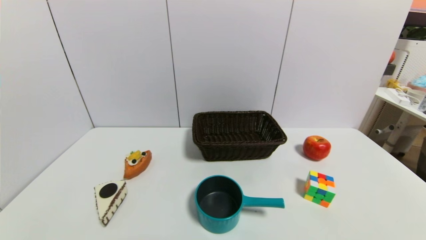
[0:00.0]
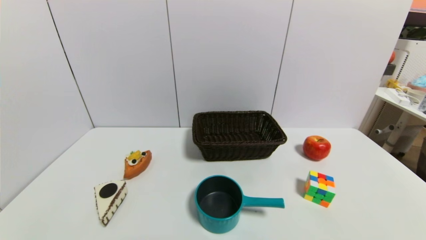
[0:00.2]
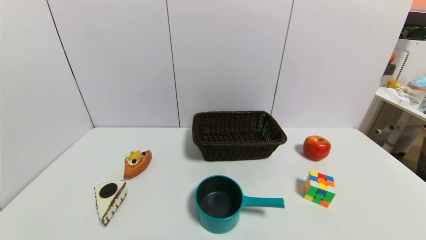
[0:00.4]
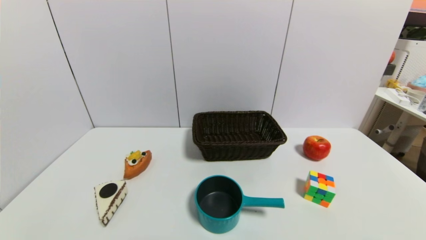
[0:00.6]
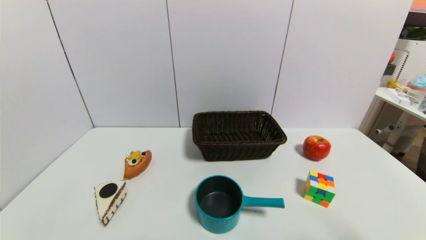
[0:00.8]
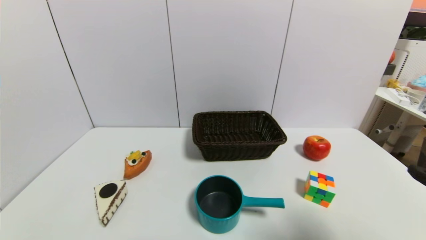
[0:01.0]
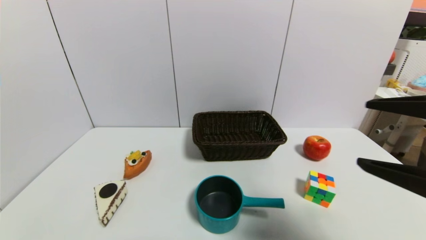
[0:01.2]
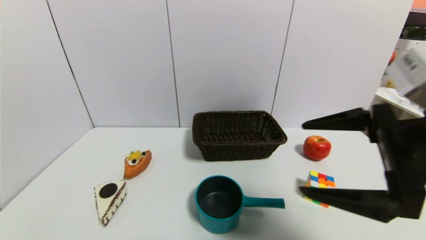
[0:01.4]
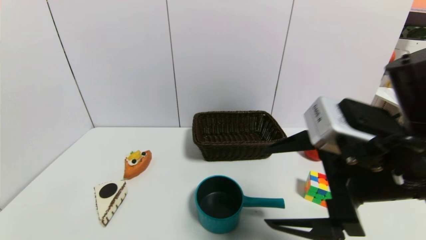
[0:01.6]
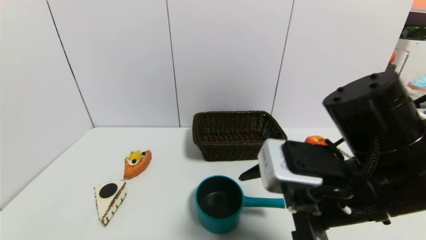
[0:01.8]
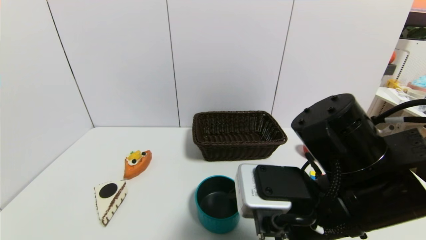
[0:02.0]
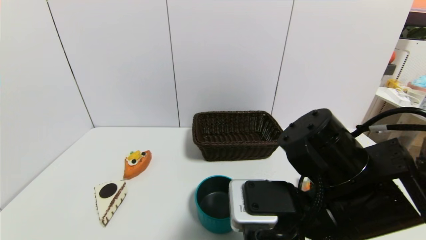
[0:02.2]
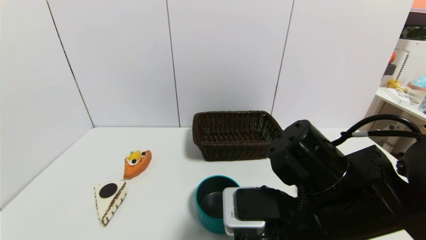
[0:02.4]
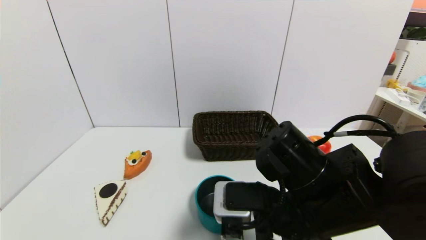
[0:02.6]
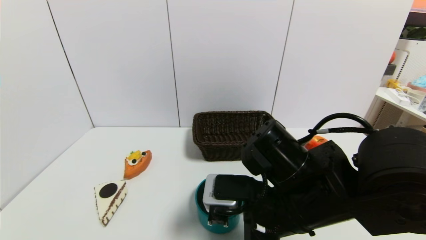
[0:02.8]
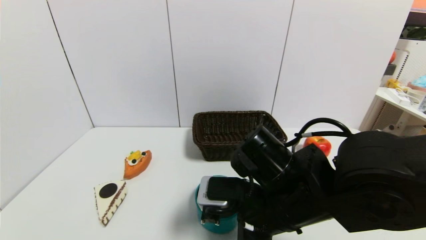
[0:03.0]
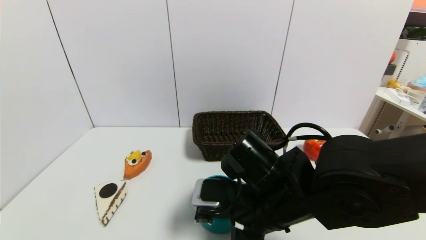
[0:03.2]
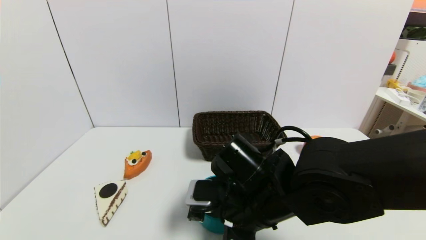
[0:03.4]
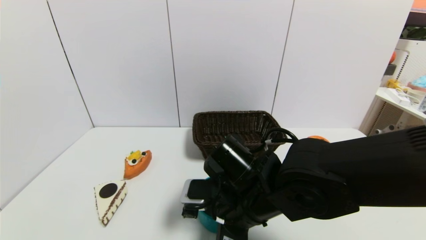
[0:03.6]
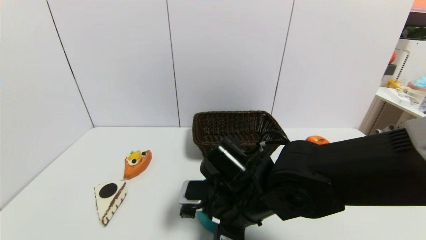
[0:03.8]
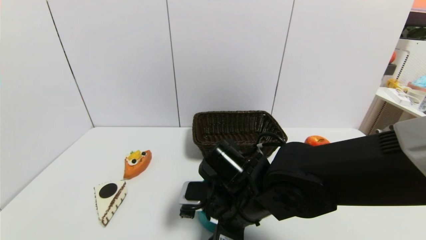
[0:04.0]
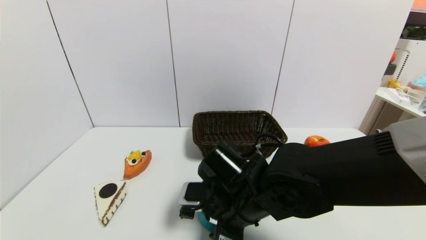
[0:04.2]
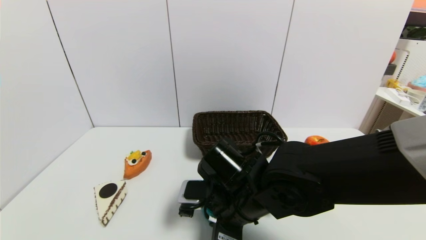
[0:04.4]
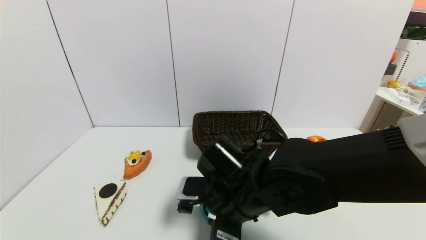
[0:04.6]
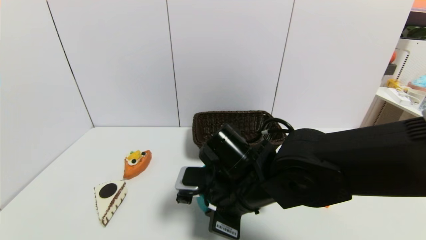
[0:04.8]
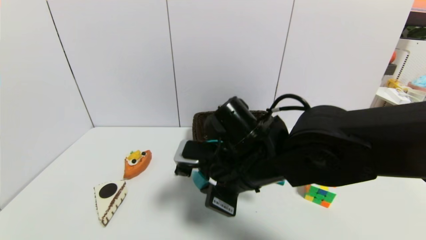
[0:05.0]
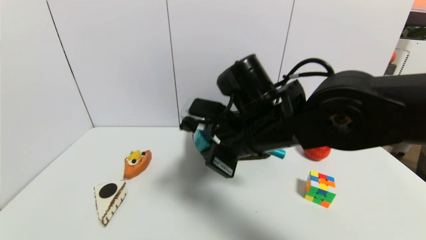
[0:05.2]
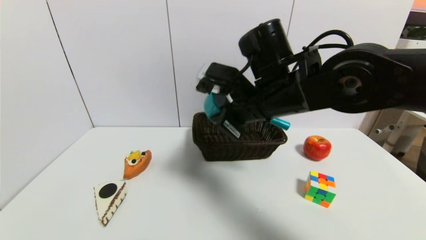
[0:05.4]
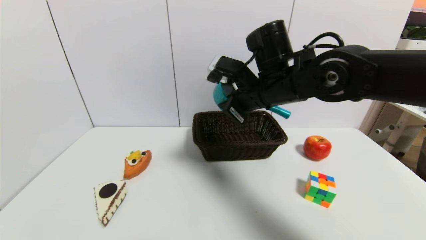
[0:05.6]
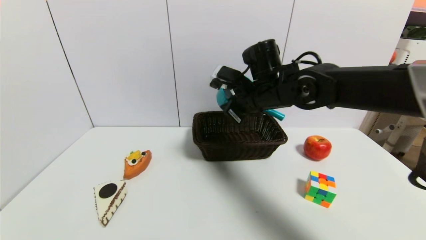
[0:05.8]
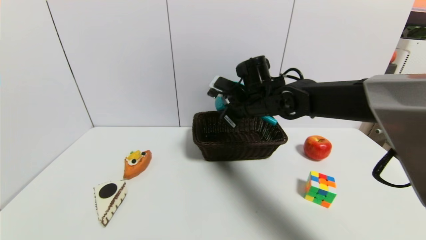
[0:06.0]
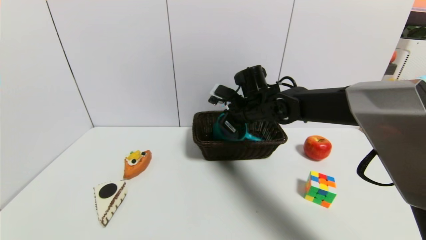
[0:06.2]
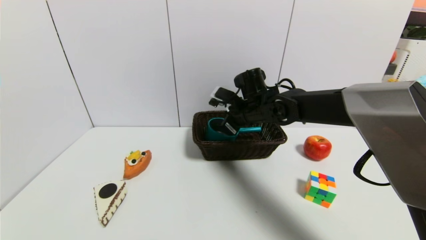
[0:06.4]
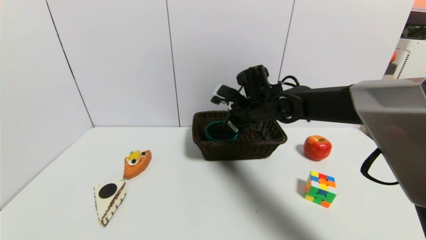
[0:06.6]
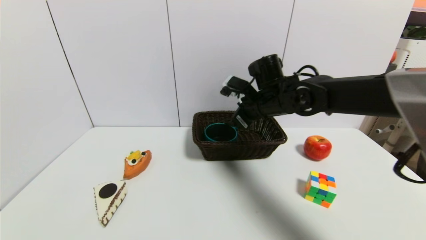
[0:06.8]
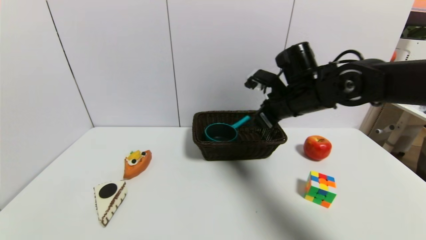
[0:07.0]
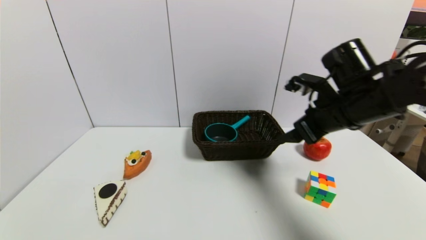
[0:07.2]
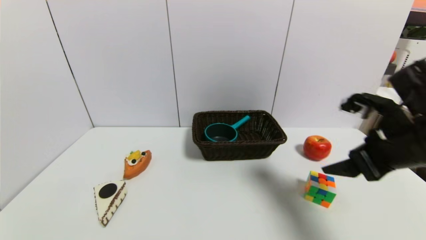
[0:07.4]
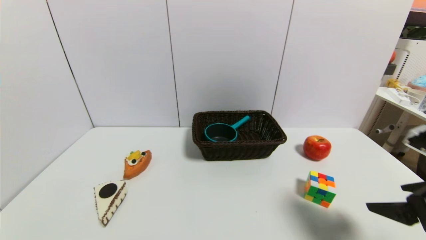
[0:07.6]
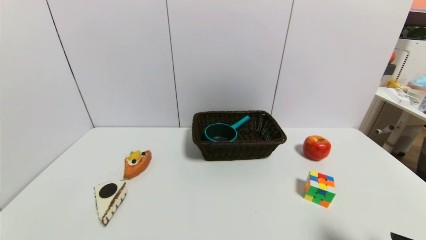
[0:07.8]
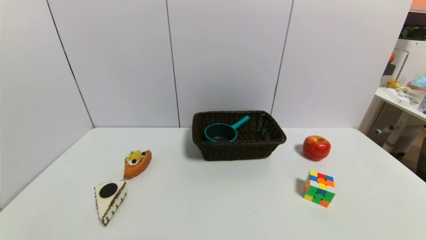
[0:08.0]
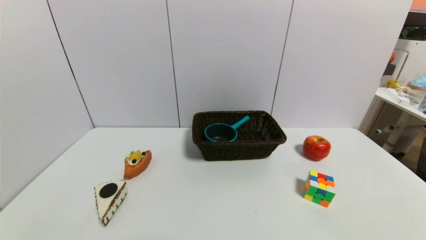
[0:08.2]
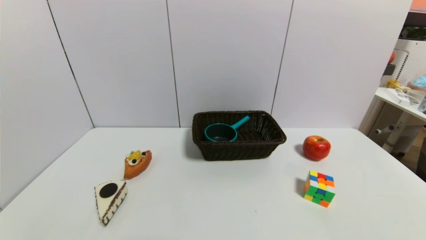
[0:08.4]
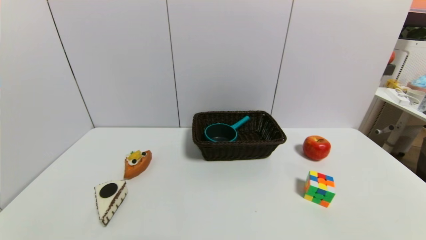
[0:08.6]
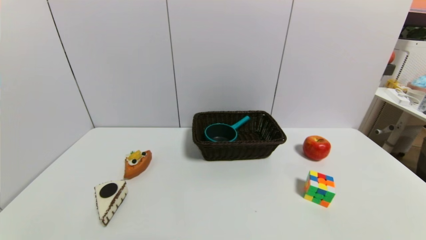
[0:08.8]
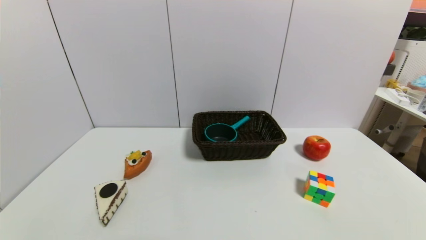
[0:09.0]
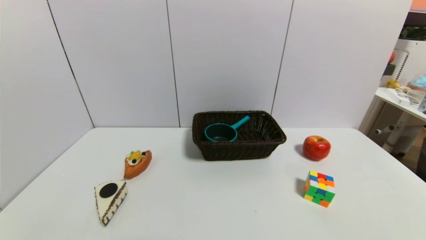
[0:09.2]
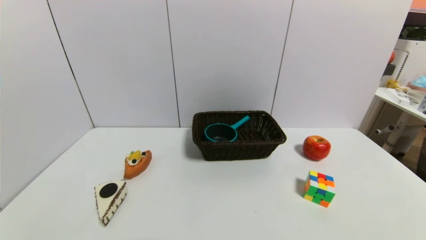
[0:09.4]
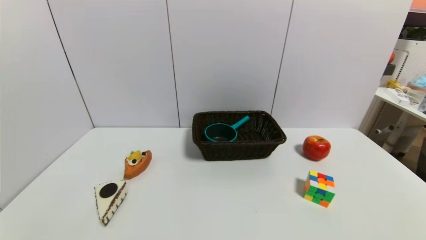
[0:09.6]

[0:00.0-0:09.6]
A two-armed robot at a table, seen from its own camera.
Task of the whole recording: use a gripper to pick the target object and place on the brown basket.
Step, 0:00.0 to 0:04.2: Grasp the blue pot with the right gripper.
Step, 0:04.4 to 0:06.8: Place the blue pot into the basket with the right gripper.
0:00.0 to 0:01.6: The right gripper goes approximately 30 cm forward, upward and to the left.
0:01.6 to 0:03.2: The right gripper is displaced to the left and downward by about 15 cm.
0:03.2 to 0:04.8: The right gripper closes its fingers.
0:04.8 to 0:06.4: The right gripper is displaced forward by approximately 20 cm, and opens up.
0:06.4 to 0:08.0: The right gripper moves backward and to the right, approximately 50 cm, and opens its fingers.
